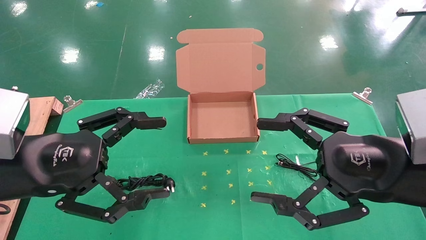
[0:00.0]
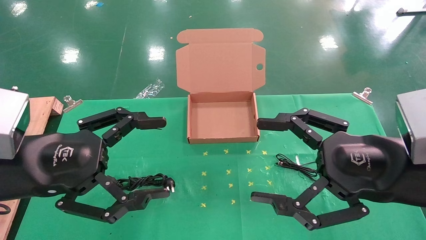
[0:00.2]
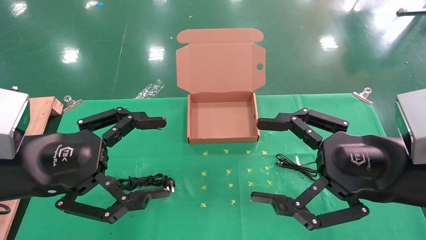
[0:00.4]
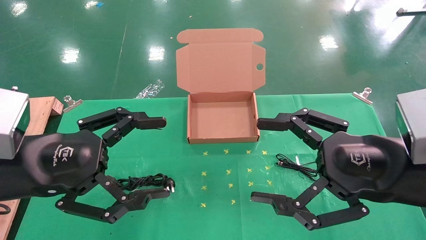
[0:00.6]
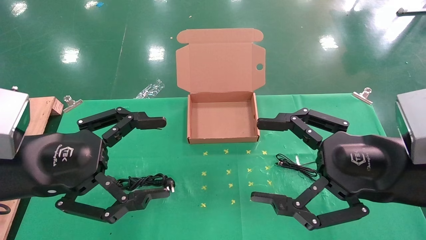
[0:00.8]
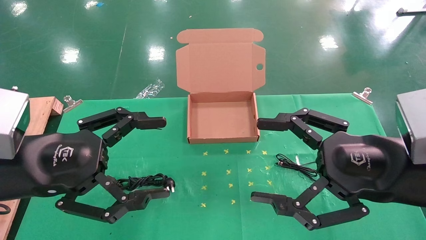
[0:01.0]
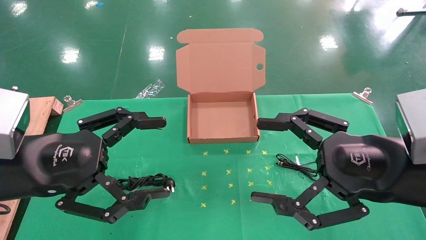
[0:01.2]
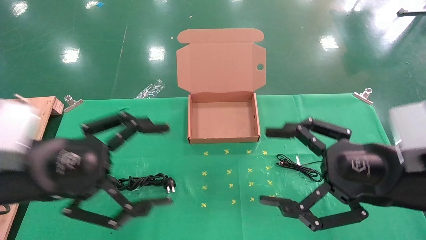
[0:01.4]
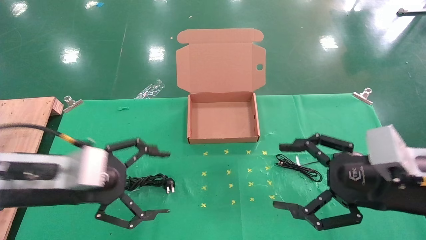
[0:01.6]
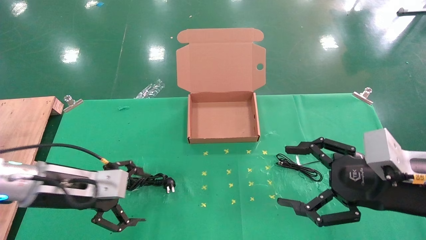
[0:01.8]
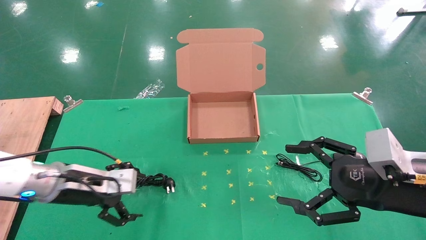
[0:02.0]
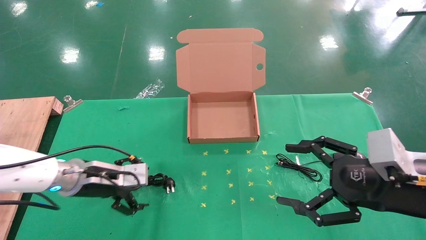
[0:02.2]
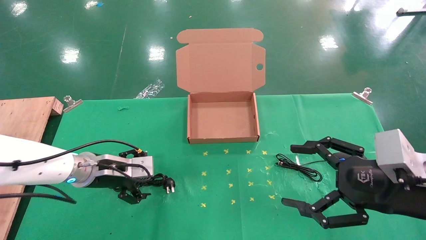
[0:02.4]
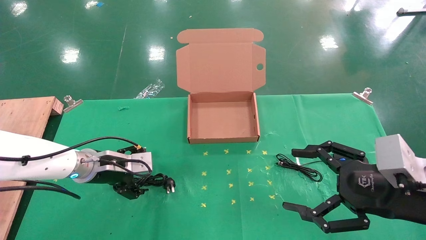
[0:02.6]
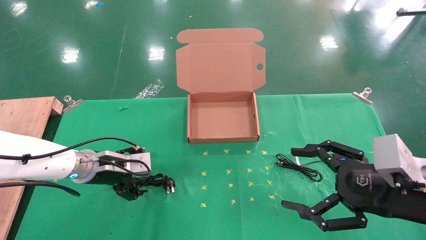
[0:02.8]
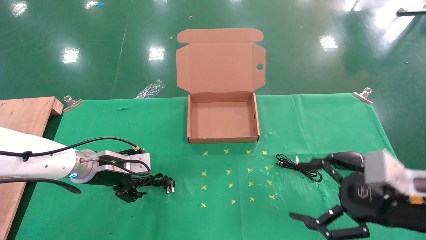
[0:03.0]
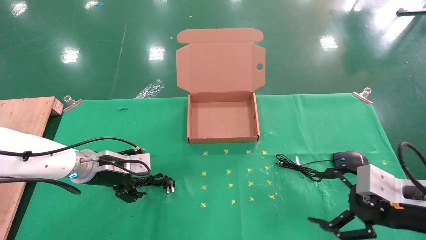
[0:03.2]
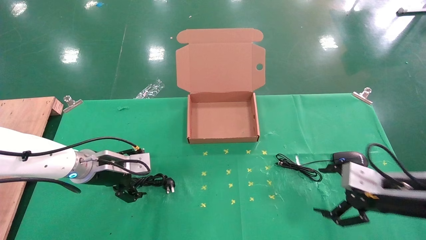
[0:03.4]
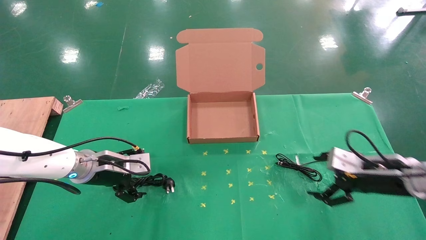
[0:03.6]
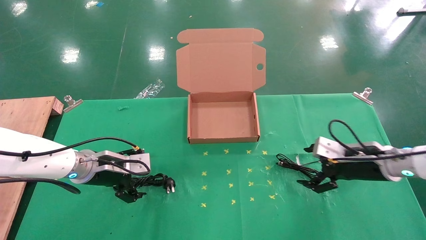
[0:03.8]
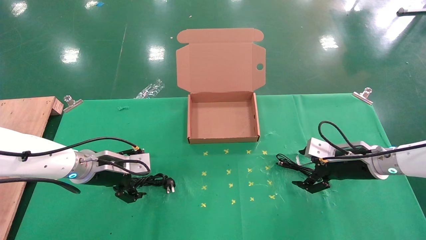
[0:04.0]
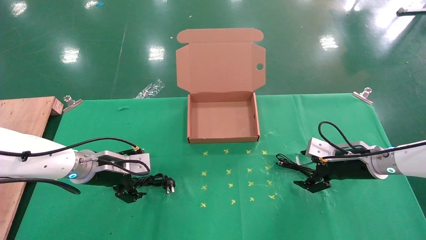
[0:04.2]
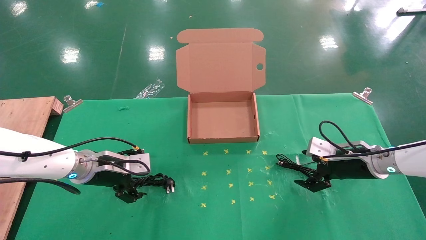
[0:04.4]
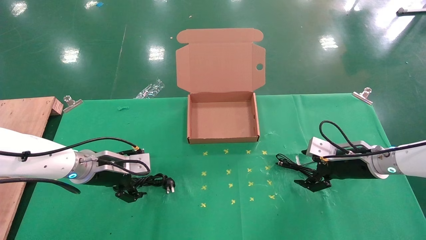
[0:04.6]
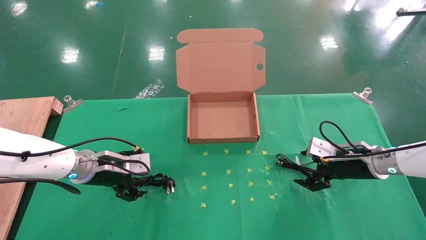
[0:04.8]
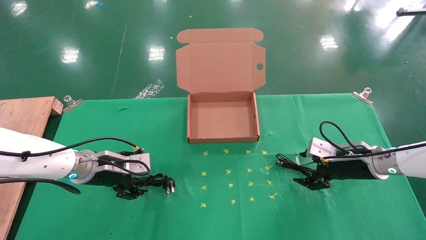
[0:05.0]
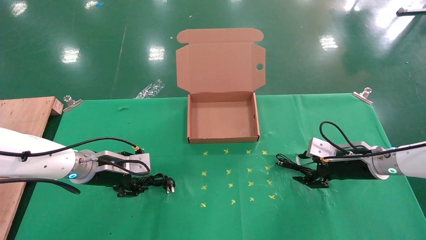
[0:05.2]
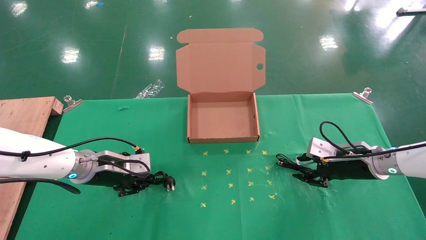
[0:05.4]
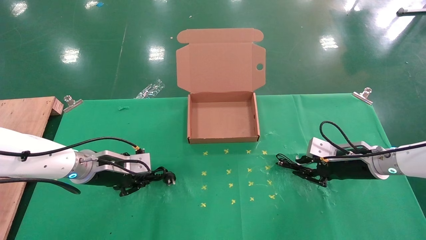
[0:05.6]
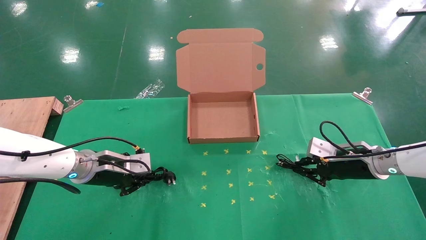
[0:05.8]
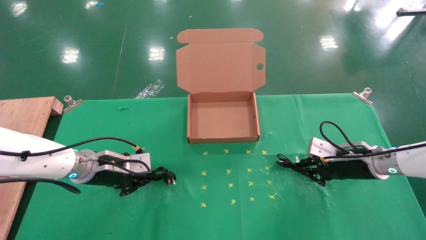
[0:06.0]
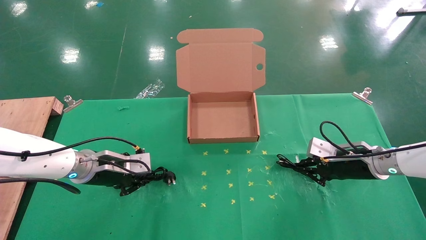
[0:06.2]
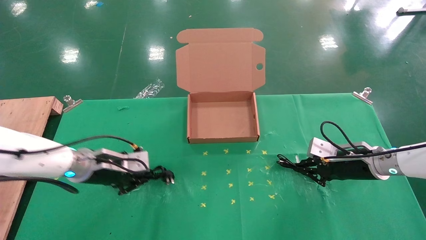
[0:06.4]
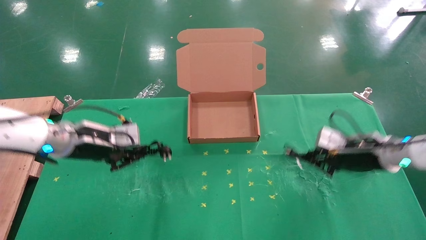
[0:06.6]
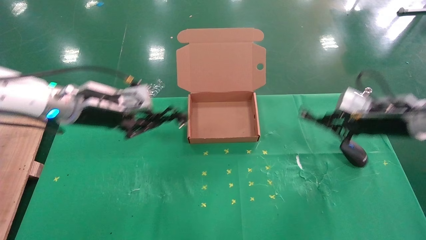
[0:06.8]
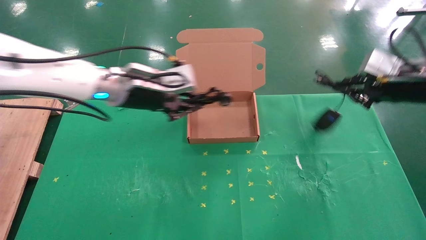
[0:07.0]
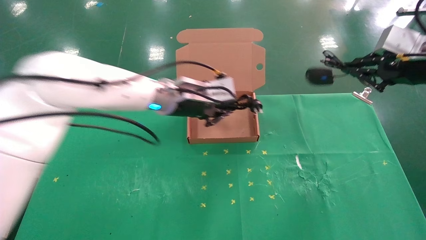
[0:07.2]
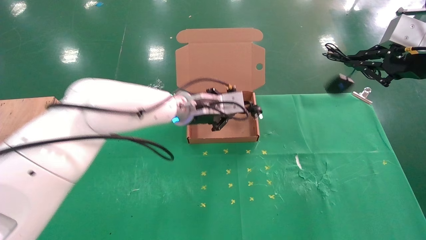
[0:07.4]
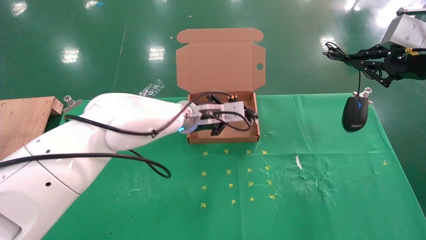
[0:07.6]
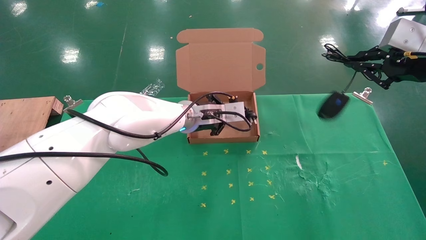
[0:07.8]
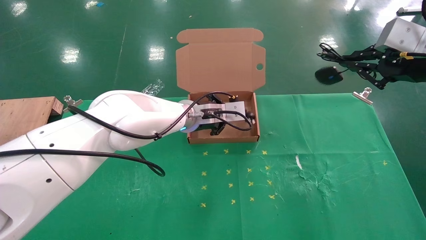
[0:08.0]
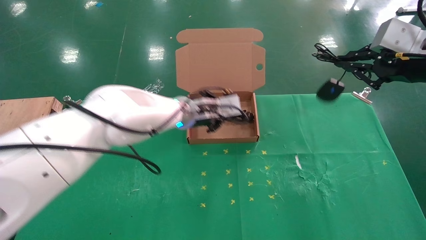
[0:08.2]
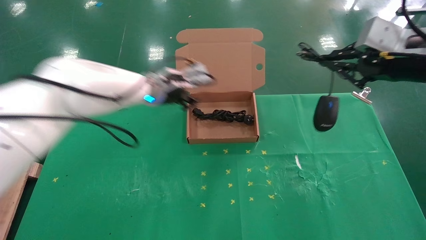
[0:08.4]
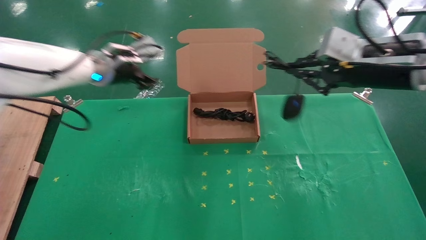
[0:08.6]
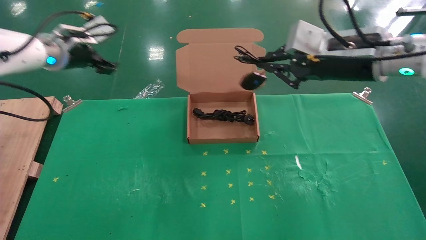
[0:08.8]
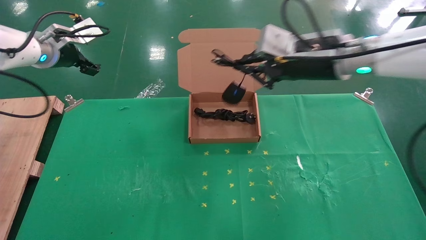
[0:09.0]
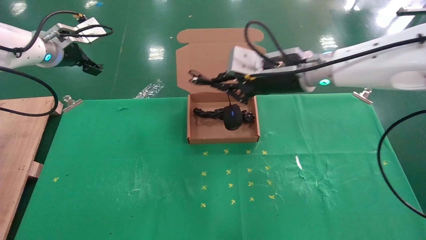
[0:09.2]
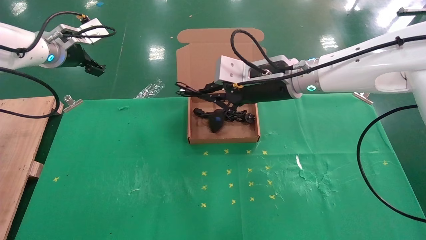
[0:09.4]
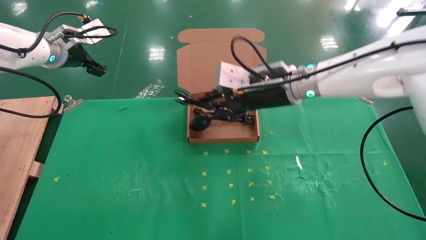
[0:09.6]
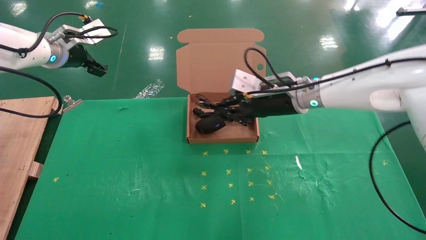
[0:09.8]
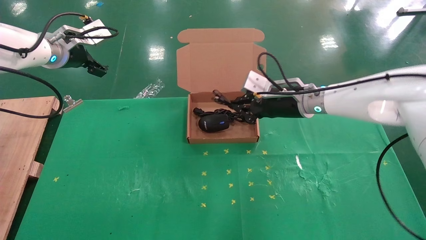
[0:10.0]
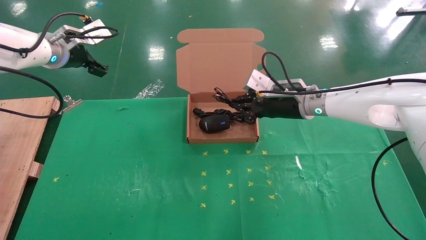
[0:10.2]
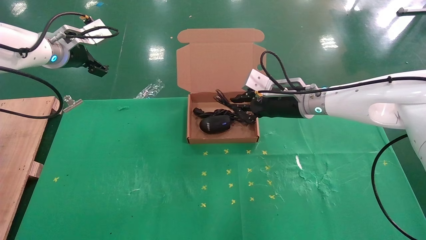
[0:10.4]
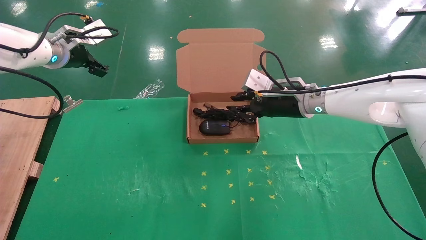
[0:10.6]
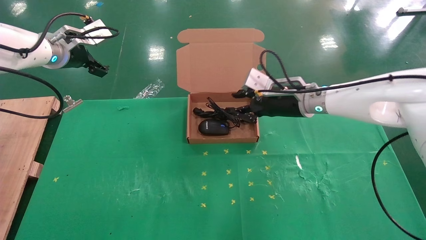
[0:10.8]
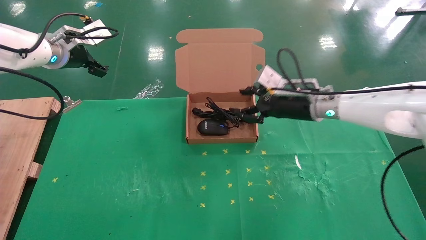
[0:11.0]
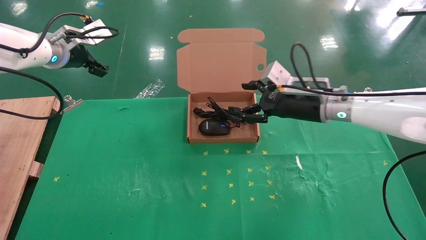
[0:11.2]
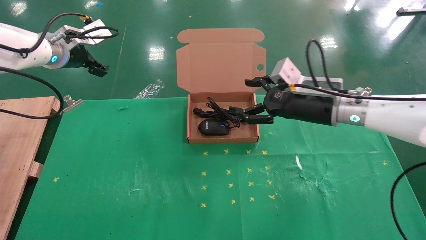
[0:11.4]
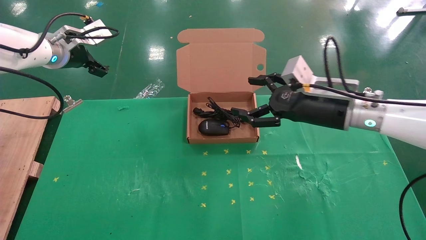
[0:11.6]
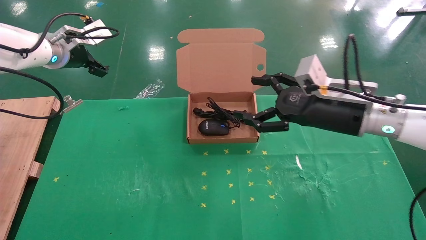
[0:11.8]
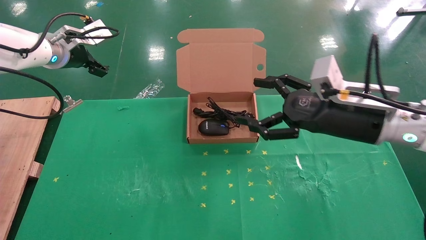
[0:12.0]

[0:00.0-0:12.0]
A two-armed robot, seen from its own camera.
Task of the whole recording: grasp data cable left put into box grasp mouse right put into box.
Step, 0:01.6 to 0:06.0: Simultaneously pick up the mouse and power cord from the accessory packaging area.
Step, 0:06.2 to 0:10.6: Place the mouse and power cord into the box.
0:00.0 to 0:01.6: The left gripper travels downward and forward by some 10 cm. Meanwhile the right gripper changes place by some 5 cm.
0:01.6 to 0:03.0: The right gripper changes place by some 5 cm. Meanwhile the left gripper goes approximately 15 cm forward and downward.
0:03.0 to 0:04.4: The right gripper goes about 20 cm forward.
0:04.4 to 0:06.0: The right gripper closes up. The left gripper closes.
0:06.0 to 0:07.6: The right gripper shifts some 25 cm upward. Meanwhile the left gripper shifts about 25 cm to the right and upward.
0:07.6 to 0:09.0: The right gripper is displaced to the left by roughly 20 cm, while the left gripper shifts roughly 30 cm to the left and upward, and opens.
0:09.0 to 0:10.4: The right gripper heads downward and forward, covering approximately 10 cm.
0:10.4 to 0:12.0: The right gripper shifts approximately 15 cm backward and to the right, and opens up.

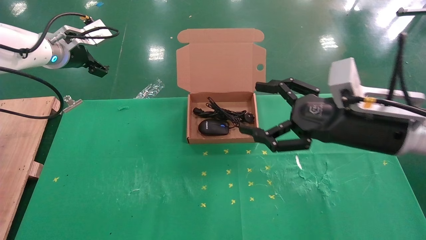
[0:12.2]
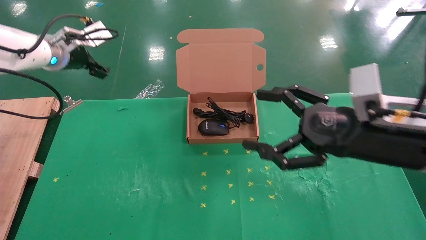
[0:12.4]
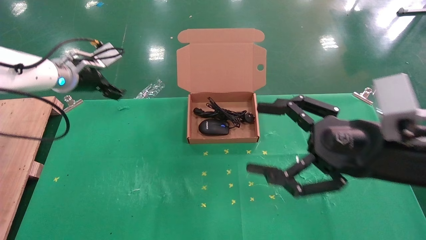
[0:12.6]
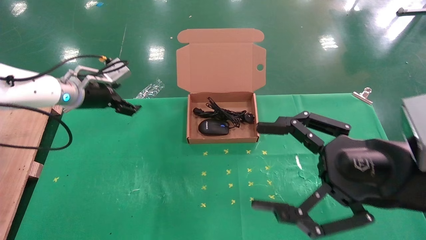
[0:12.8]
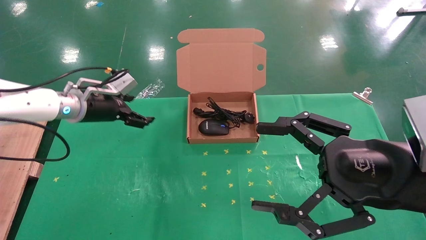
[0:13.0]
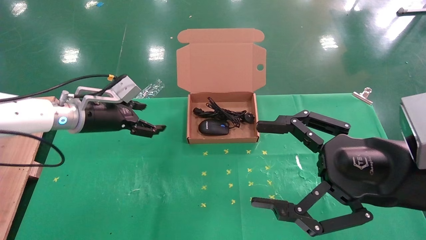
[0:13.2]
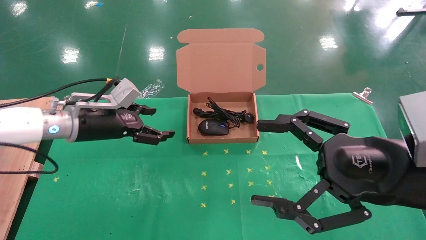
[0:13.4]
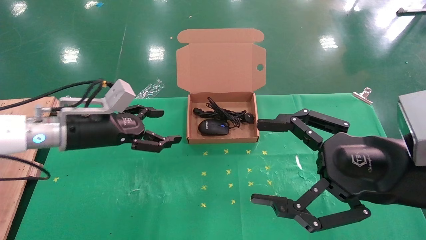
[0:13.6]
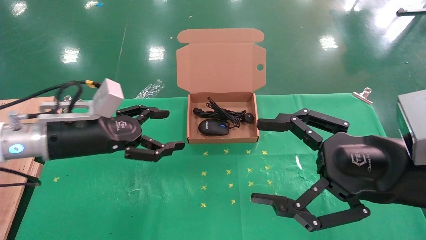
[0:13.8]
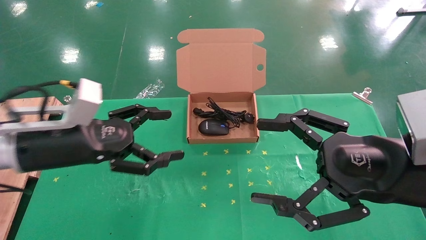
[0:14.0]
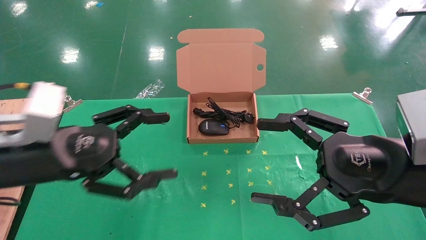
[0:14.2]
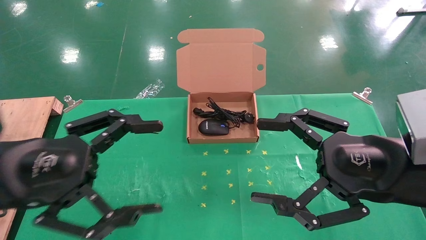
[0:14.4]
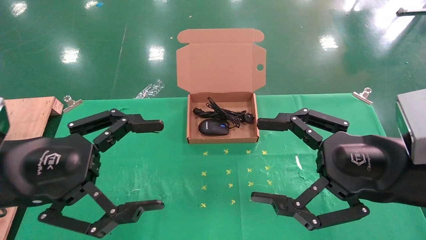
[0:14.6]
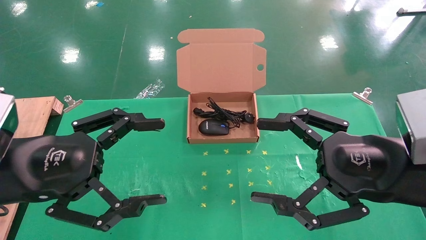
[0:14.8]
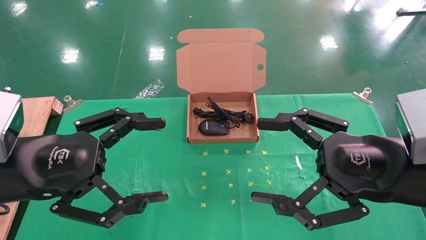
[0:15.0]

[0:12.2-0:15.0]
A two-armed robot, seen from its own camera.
Task of the whole recording: grasp data cable left put into box grasp mouse right put into box.
0:12.2 to 0:13.6: The left gripper travels backward, downward and to the right by about 20 cm; the right gripper moves backward, approximately 10 cm.
0:13.6 to 0:15.0: The left gripper moves backward, some 15 cm.
